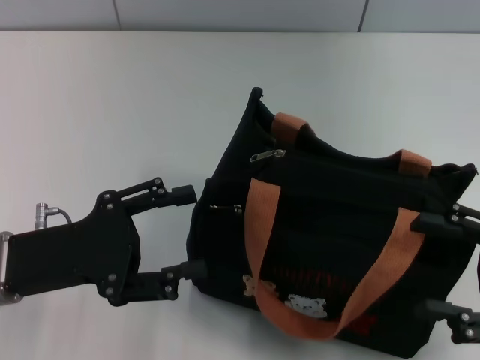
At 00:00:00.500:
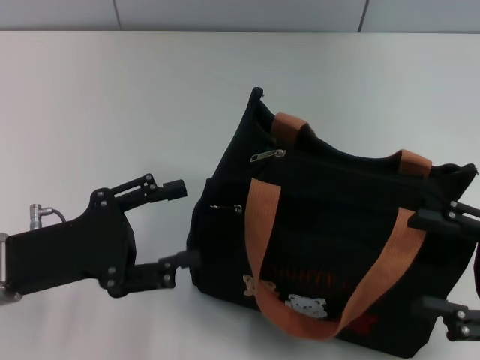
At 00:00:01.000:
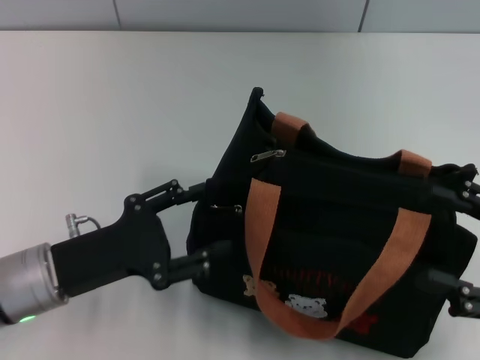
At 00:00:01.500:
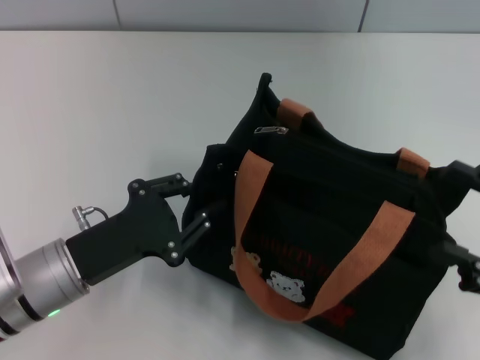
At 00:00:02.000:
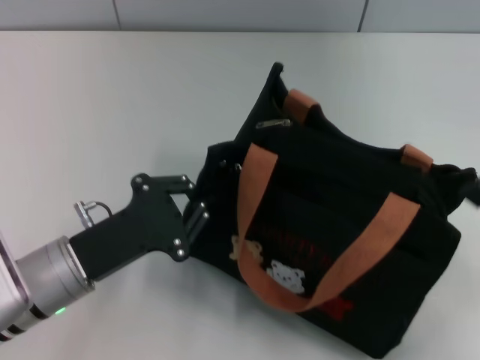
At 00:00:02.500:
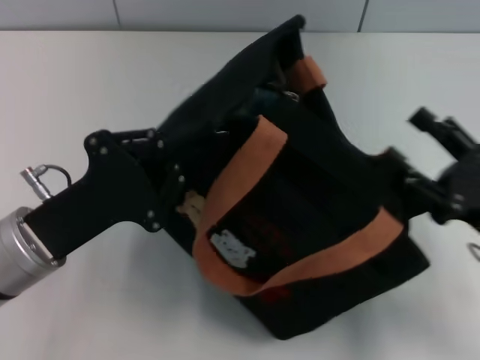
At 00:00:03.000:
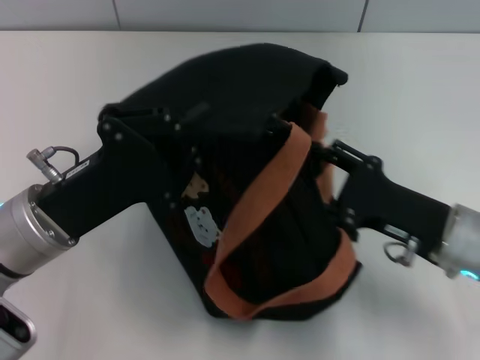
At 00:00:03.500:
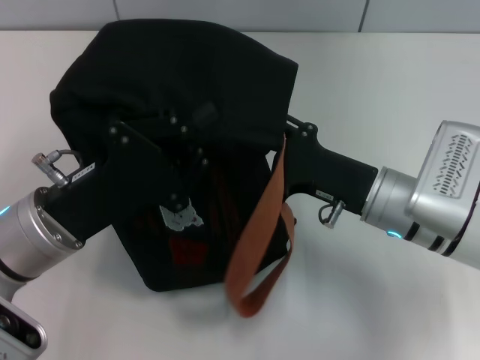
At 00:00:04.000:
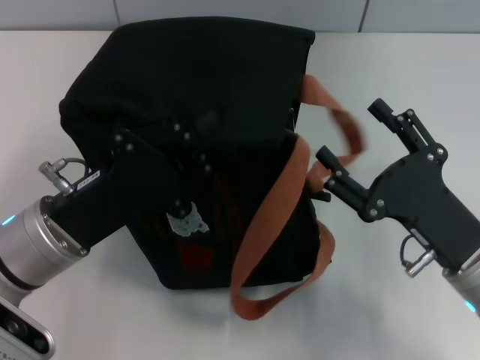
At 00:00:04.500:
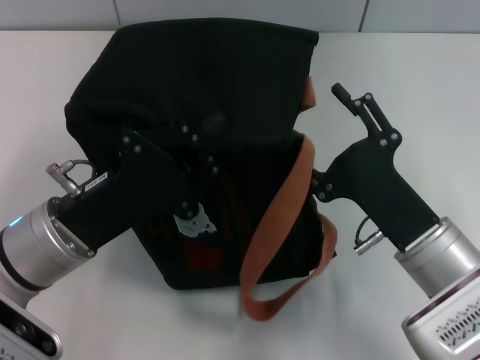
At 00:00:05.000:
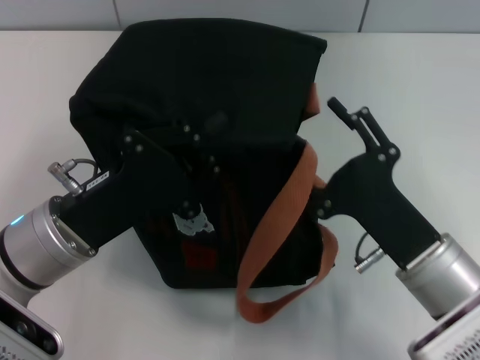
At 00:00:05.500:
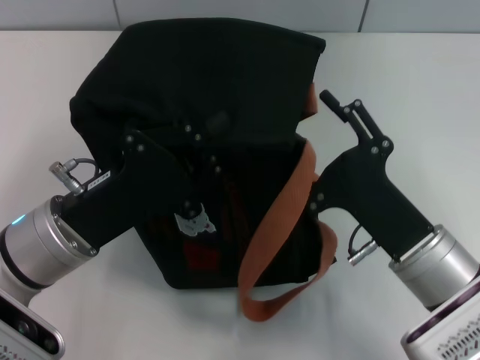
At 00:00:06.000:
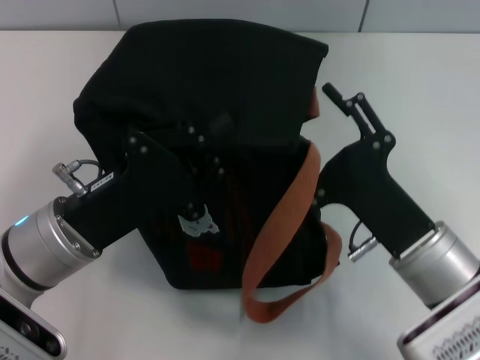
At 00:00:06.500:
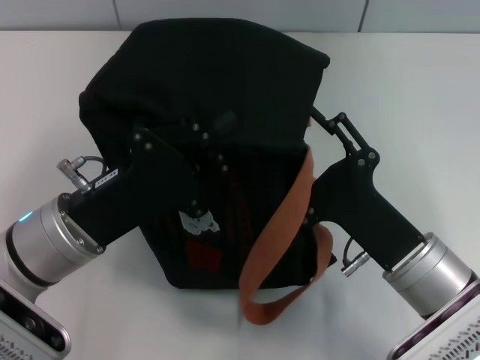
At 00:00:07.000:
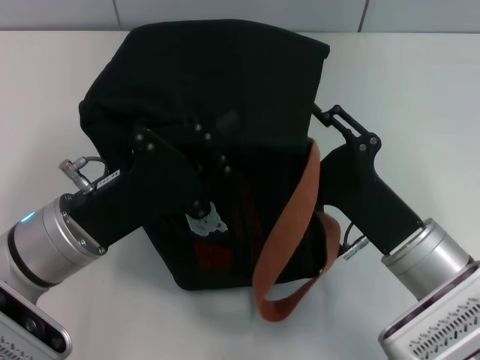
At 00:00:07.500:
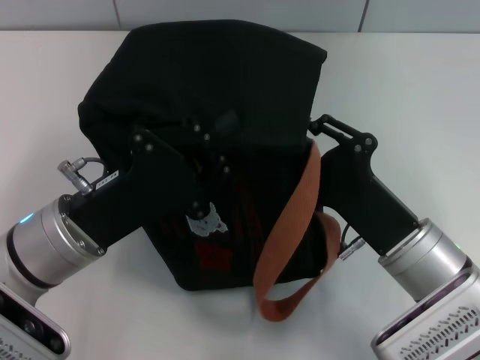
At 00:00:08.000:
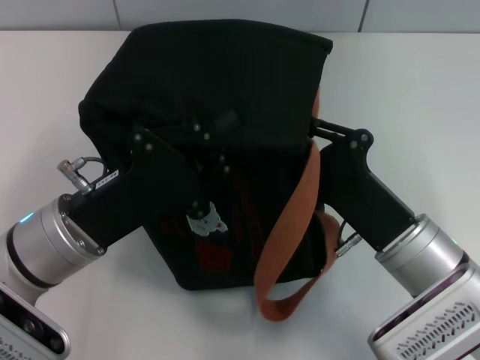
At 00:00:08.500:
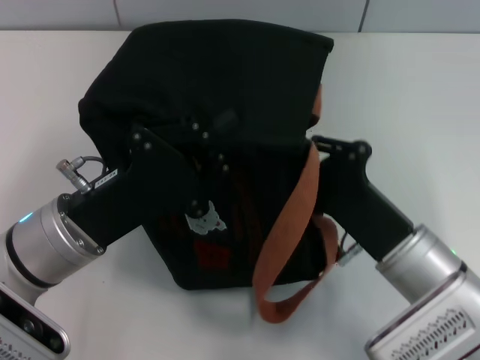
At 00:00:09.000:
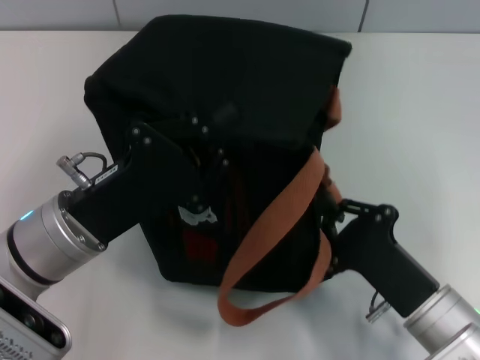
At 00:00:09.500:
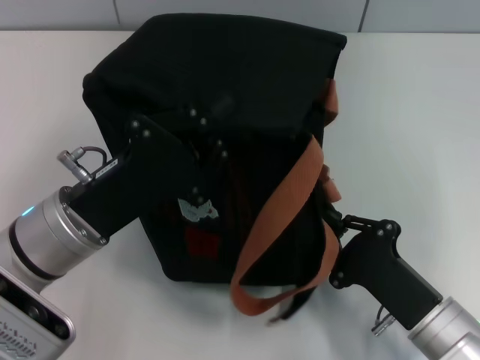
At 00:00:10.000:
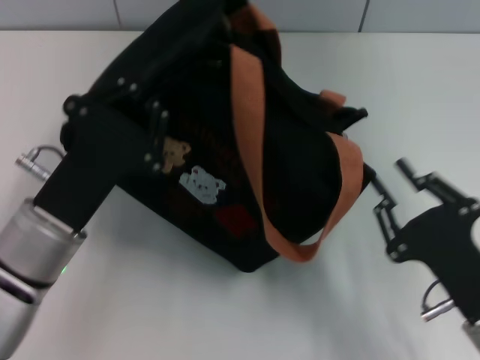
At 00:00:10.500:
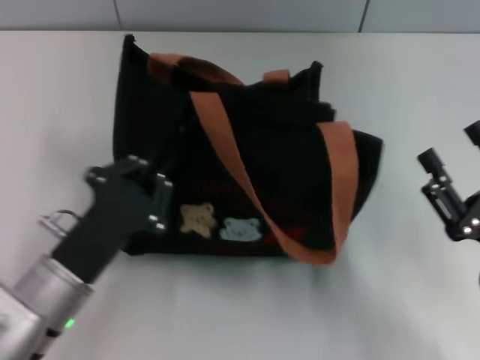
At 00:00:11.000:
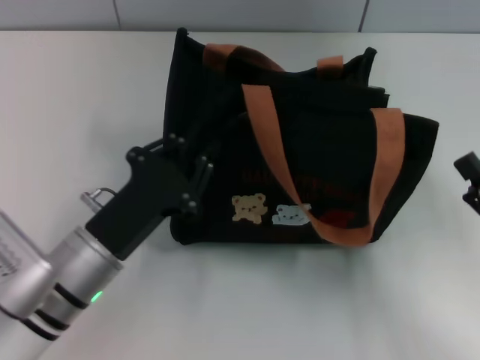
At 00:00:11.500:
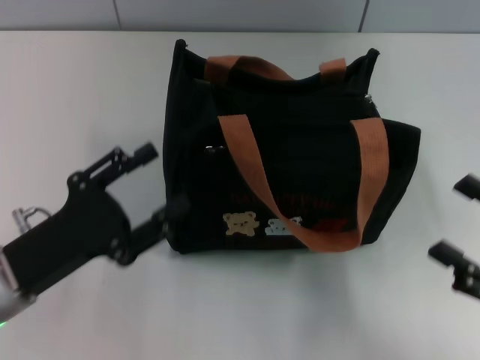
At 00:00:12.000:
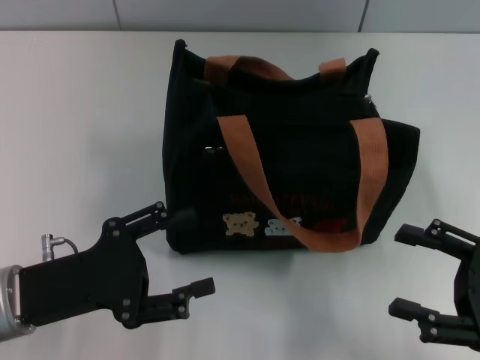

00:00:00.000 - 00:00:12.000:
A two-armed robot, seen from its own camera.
Step, 00:00:00.000 - 00:00:09.500: Pull open the zipper with your right hand.
Step, 00:00:10.000 - 00:00:11.000: Grab the bag with your left hand.
00:00:00.000 - 00:00:02.000: The left gripper shifts by some 5 cm, and closes its fingers.
00:00:02.000 - 00:00:04.000: The right gripper goes roughly 10 cm to the left.
00:00:06.000 - 00:00:08.000: The right gripper closes up.
00:00:08.000 - 00:00:10.000: The right gripper is displaced backward and to the right by some 10 cm.
00:00:10.000 - 00:00:12.000: The right gripper is displaced to the right by some 10 cm, and opens its fingers. Meanwhile the left gripper heads to the left, covering roughly 5 cm, and opens up.
